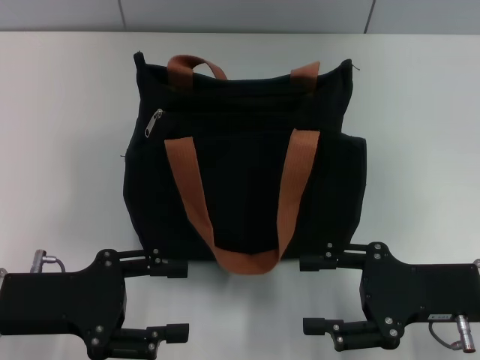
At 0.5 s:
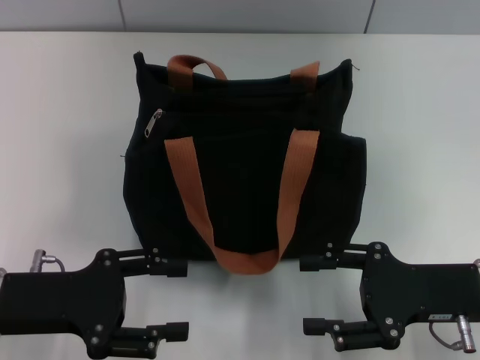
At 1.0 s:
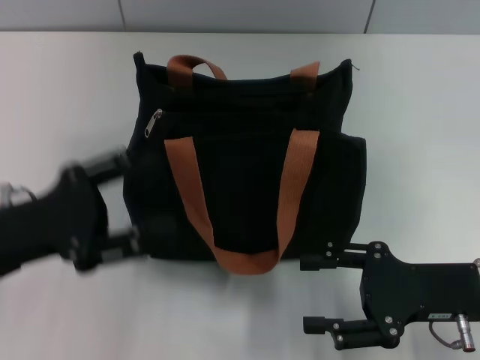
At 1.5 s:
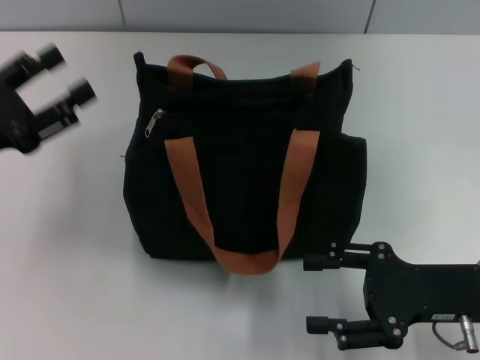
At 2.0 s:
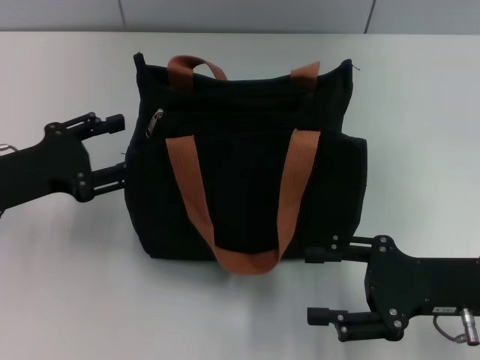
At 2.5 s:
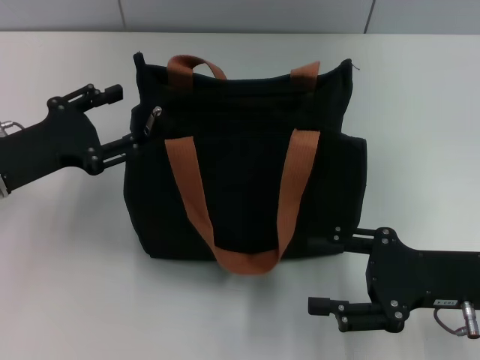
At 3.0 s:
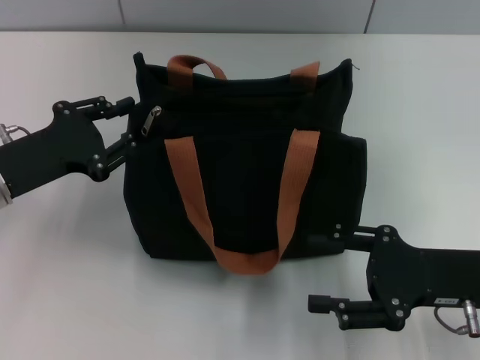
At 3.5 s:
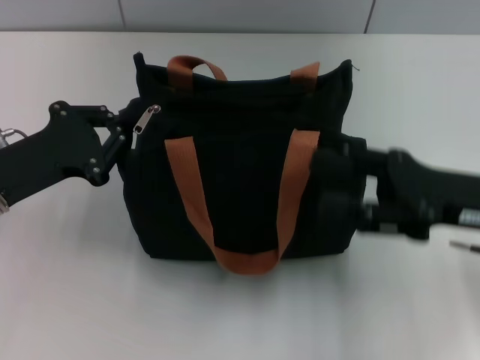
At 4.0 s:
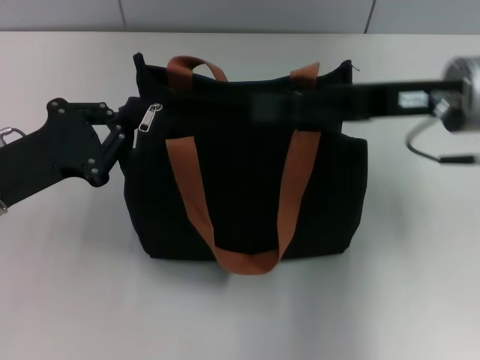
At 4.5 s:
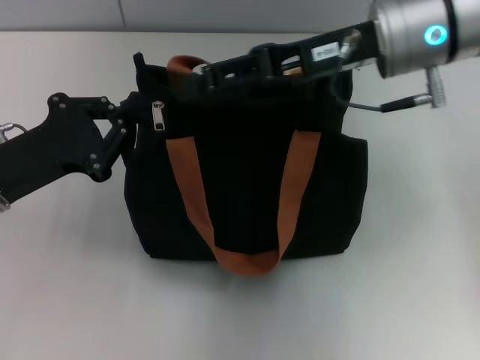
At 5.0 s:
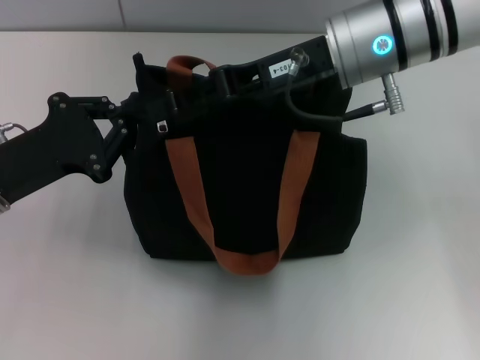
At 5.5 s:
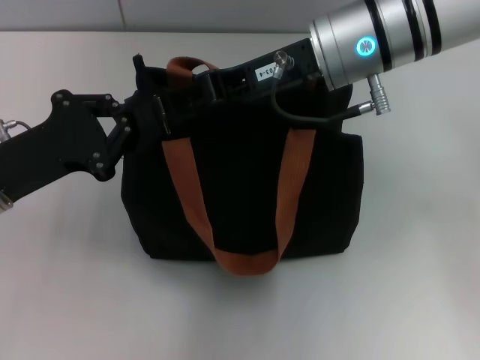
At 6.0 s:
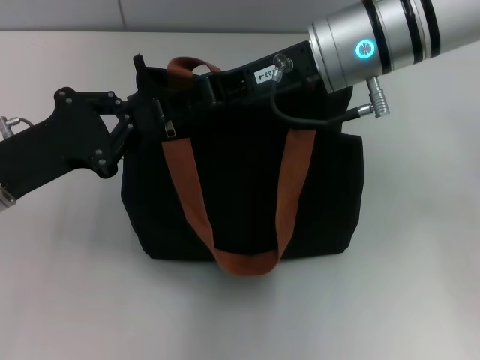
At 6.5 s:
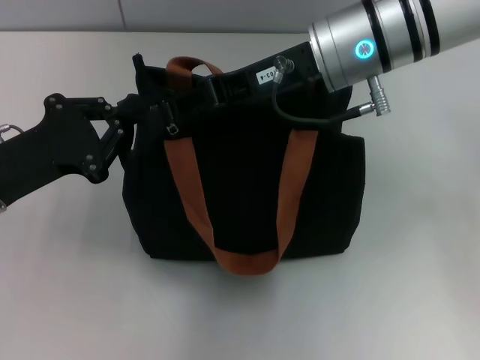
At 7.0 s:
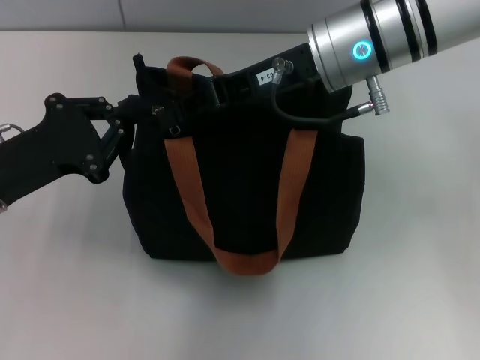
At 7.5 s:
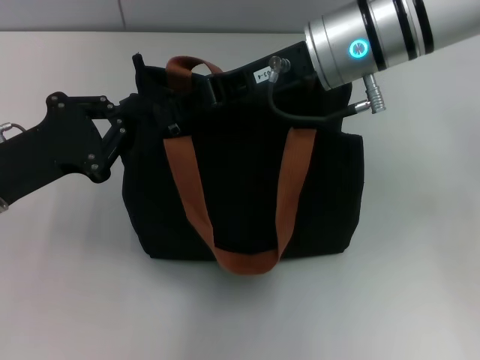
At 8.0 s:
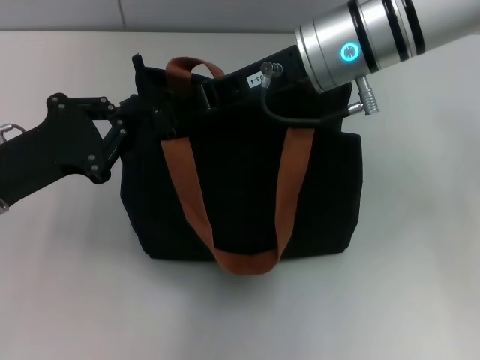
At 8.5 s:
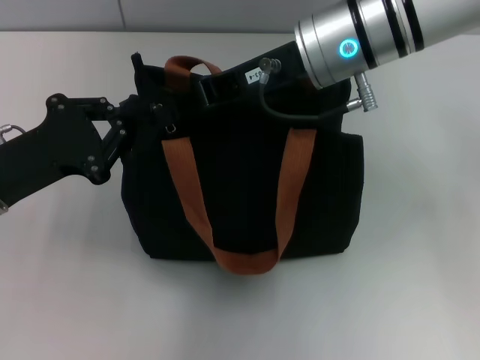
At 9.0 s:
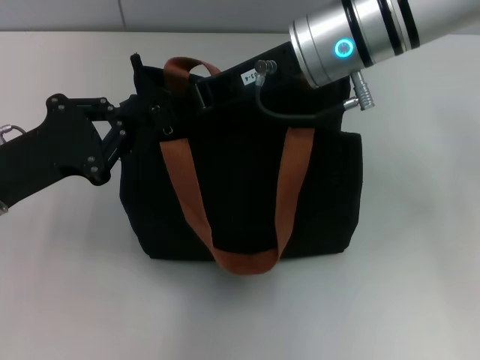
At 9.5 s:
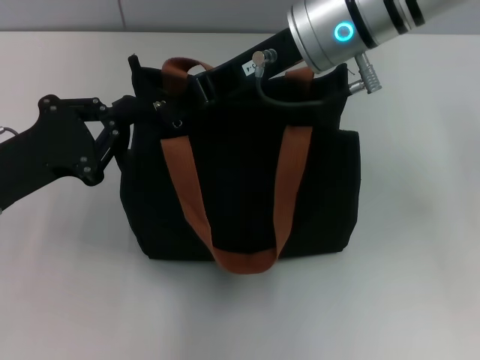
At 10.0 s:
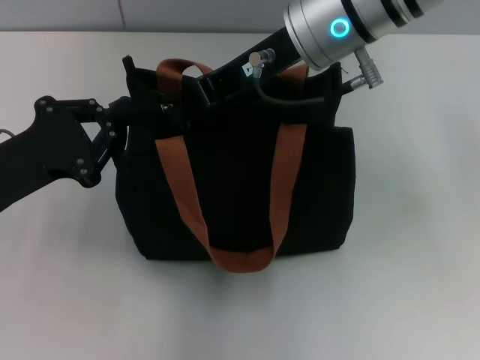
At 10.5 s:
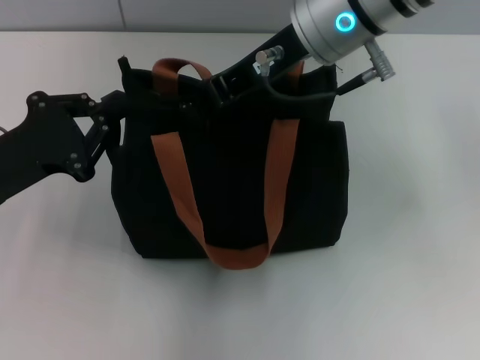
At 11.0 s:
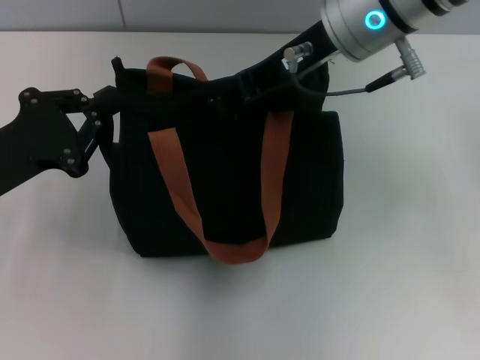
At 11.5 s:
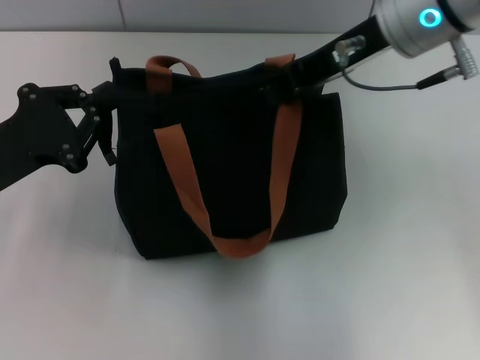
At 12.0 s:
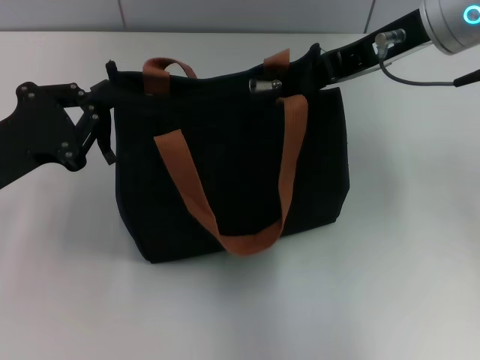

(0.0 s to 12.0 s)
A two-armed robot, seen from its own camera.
0.0 s - 2.0 s: The left gripper moves forward, some 5 cm.
2.0 s - 4.0 s: The left gripper closes up, while the right gripper shifts roughly 15 cm upward, forward and to the left.
4.0 s - 6.0 s: The right gripper goes about 10 cm to the left.
6.0 s - 8.0 s: The right gripper closes up.
8.0 s - 10.0 s: The grippers stay close to where they were, moving slightly.
10.0 s - 12.0 s: The right gripper heads to the right, covering roughly 10 cm.

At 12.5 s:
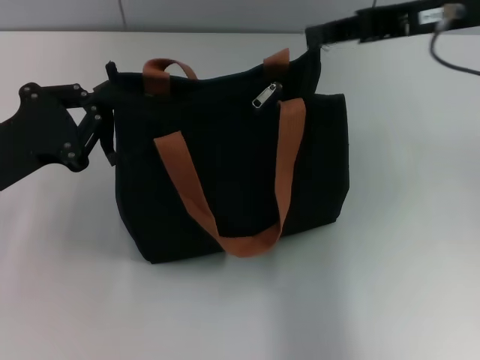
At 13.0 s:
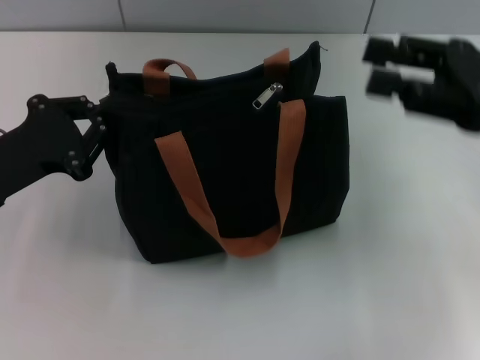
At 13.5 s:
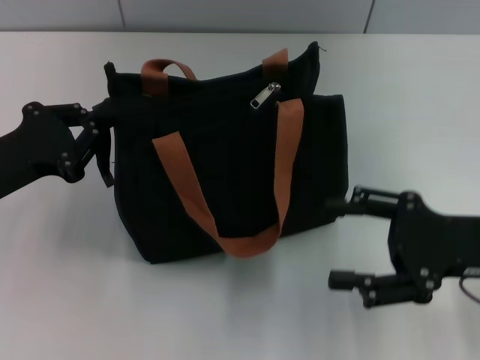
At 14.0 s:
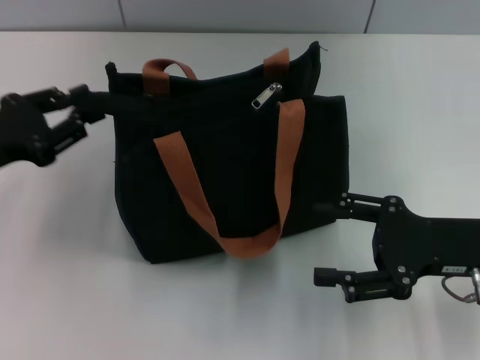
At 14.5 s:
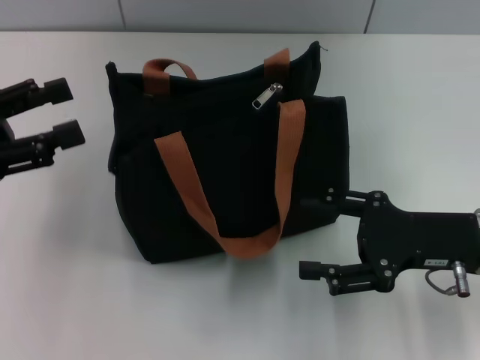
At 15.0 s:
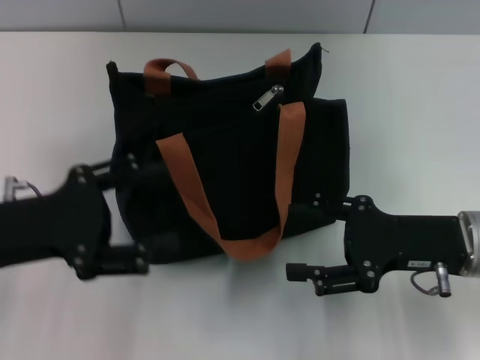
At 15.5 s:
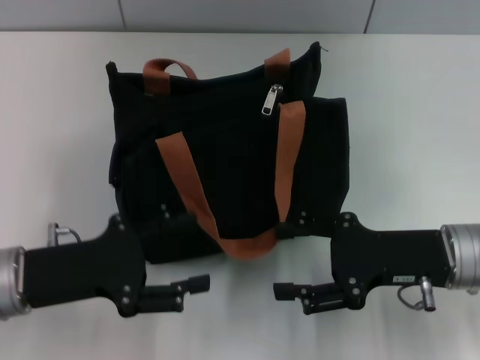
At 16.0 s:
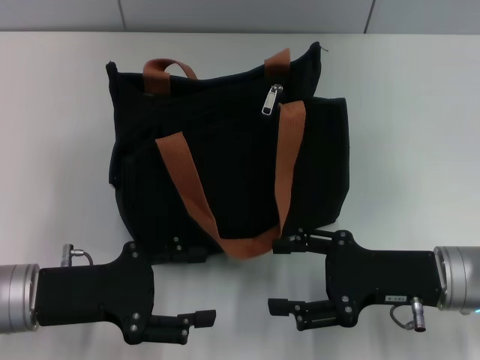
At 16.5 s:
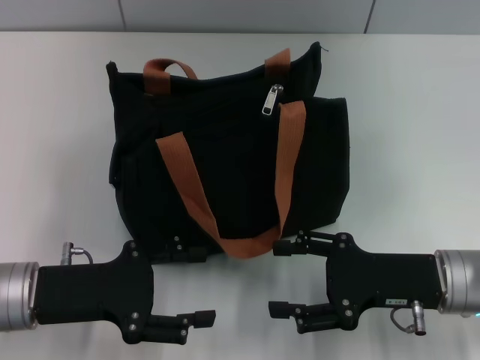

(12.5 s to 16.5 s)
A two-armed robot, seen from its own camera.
Step, 12.5 s - 14.0 s: Grab the zipper with your left hand.
12.5 s - 14.5 s: The left gripper shifts about 5 cm upward, and opens its fingers. Meanwhile the right gripper goes some 20 cm downward and backward, and opens its fingers.
14.5 s - 16.5 s: The left gripper heads downward and to the right, covering about 15 cm.

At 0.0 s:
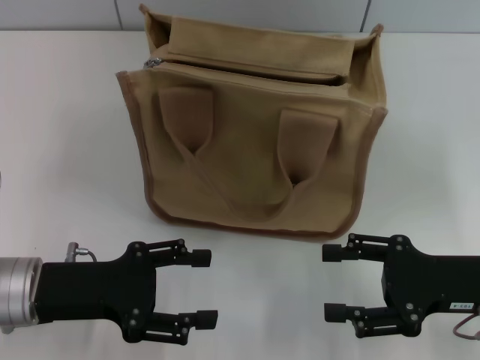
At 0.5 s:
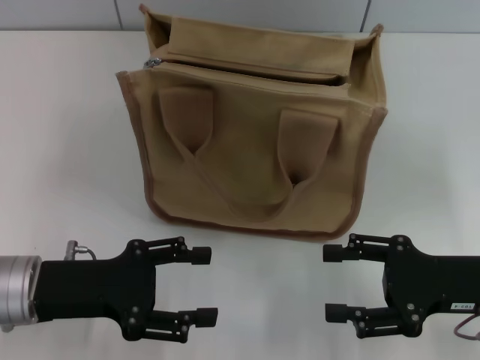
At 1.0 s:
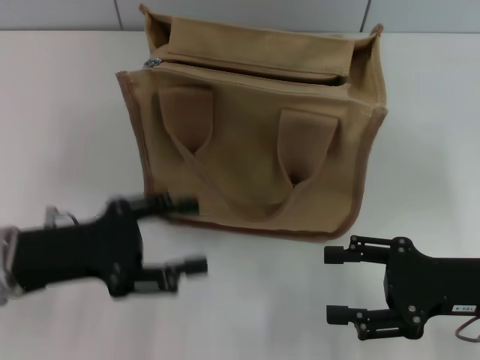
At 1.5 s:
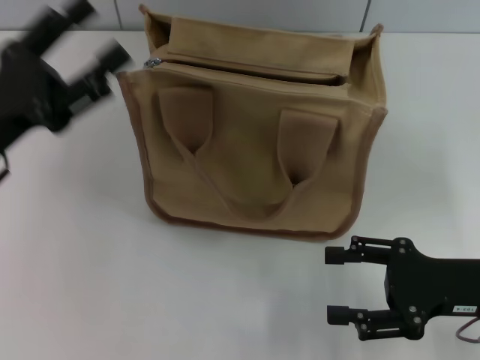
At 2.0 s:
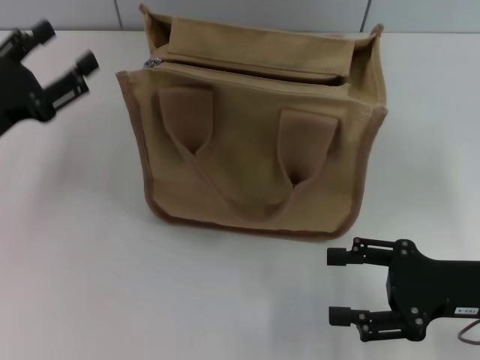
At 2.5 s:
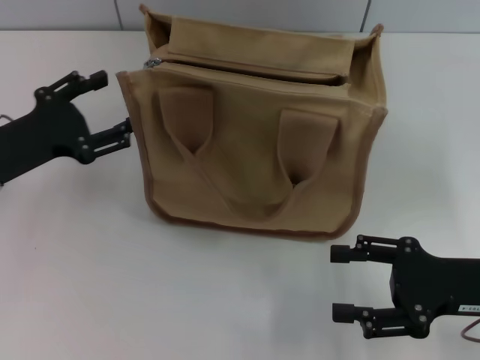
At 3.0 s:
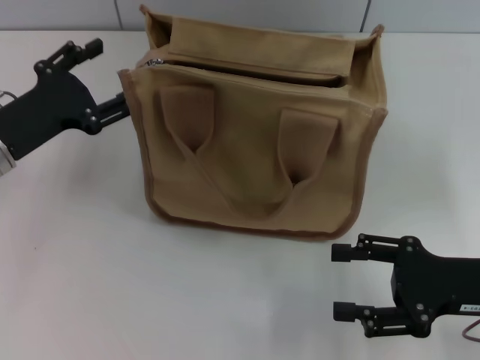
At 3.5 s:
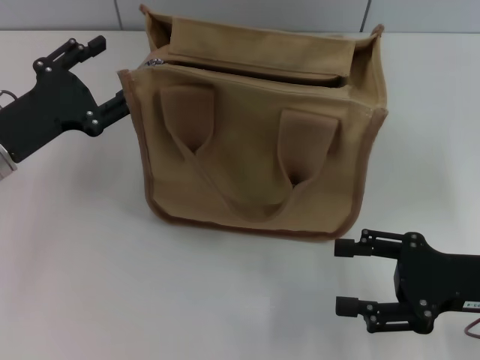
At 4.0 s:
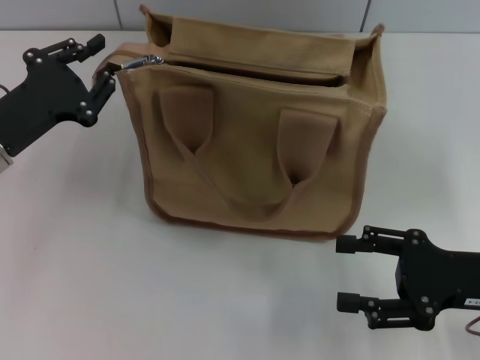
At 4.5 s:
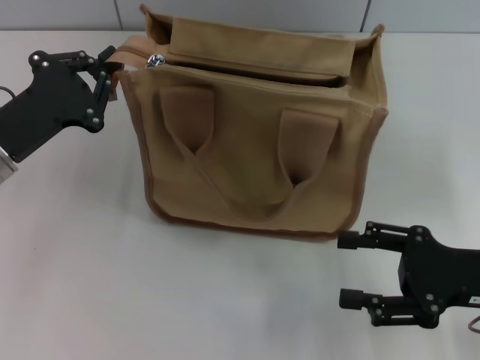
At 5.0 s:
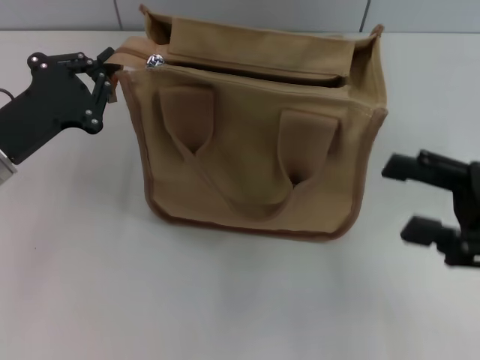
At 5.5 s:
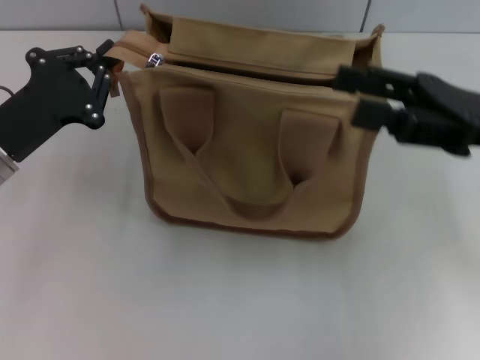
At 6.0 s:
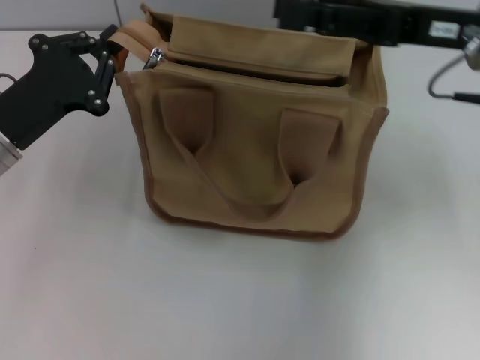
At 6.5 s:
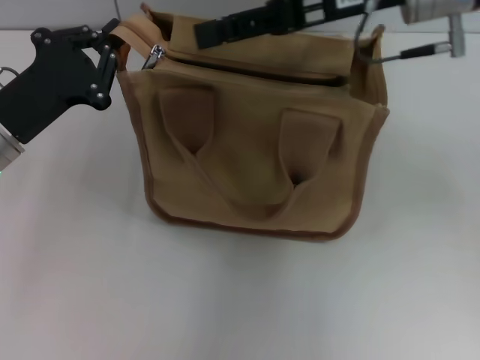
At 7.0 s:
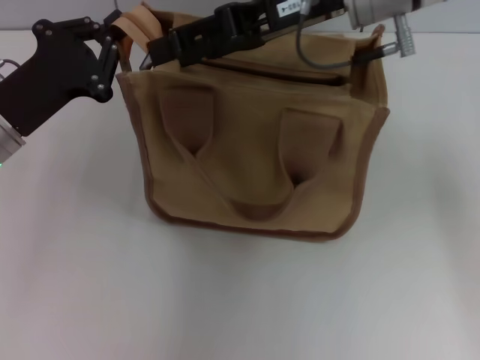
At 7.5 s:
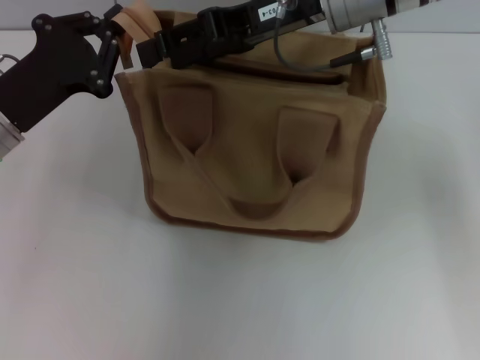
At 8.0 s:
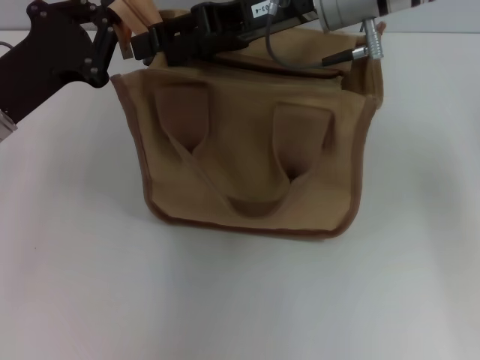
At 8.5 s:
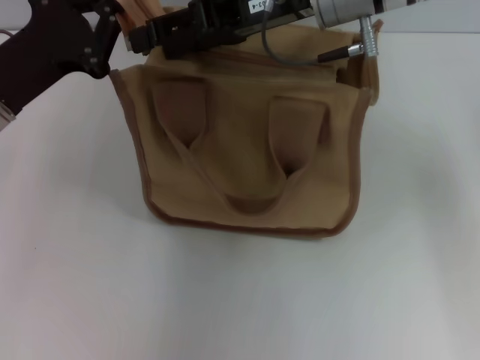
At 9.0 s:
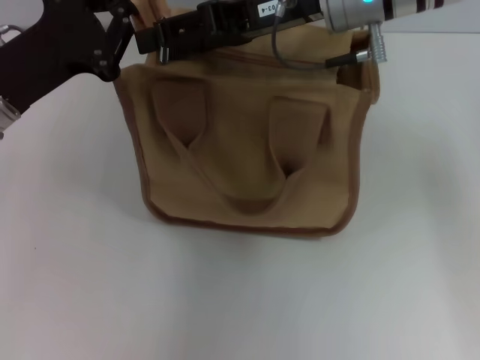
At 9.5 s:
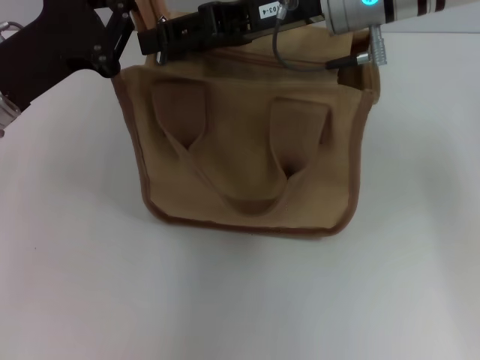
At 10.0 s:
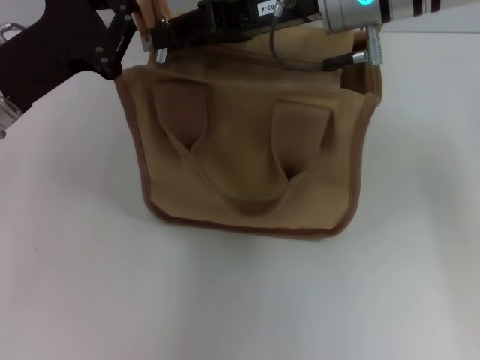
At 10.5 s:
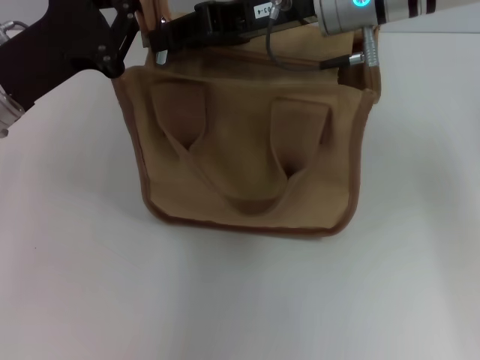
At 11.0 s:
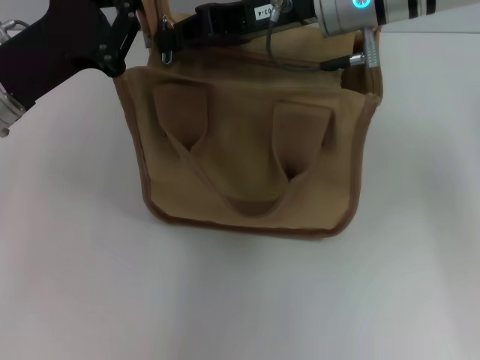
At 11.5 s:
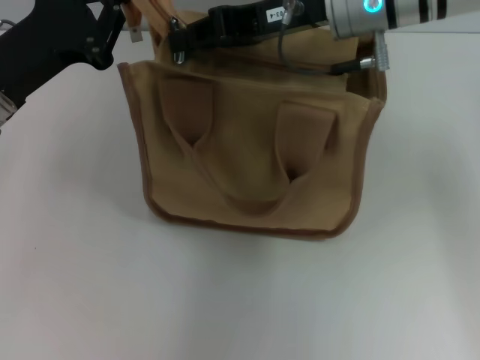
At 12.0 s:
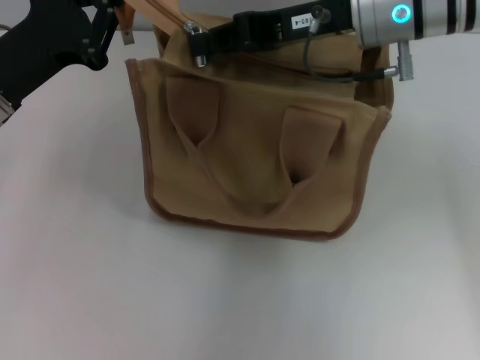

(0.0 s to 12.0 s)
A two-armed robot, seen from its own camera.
0.0 s - 2.0 s: The left gripper heads to the left and forward, covering about 10 cm.
2.0 s - 4.0 s: The left gripper closes its fingers.
4.0 s - 6.0 s: The right gripper travels upward, forward and to the left by some 20 cm. Meanwhile the left gripper closes.
6.0 s - 8.0 s: The right gripper heads to the left, covering about 10 cm.
8.0 s - 10.0 s: The right gripper closes up.
10.0 s - 12.0 s: The right gripper closes its fingers.
